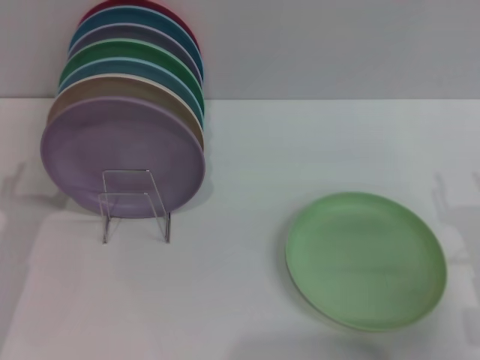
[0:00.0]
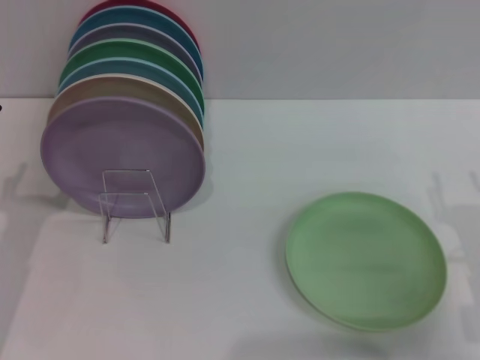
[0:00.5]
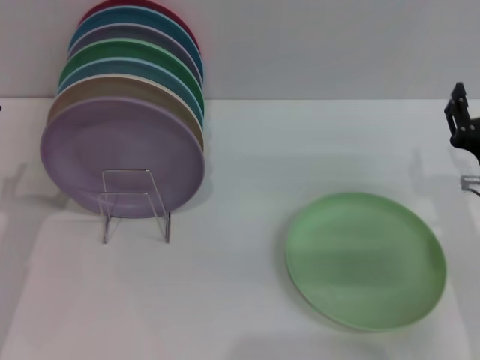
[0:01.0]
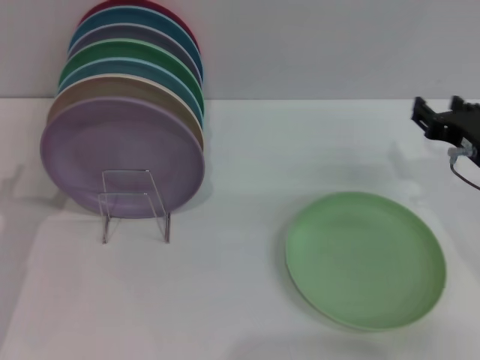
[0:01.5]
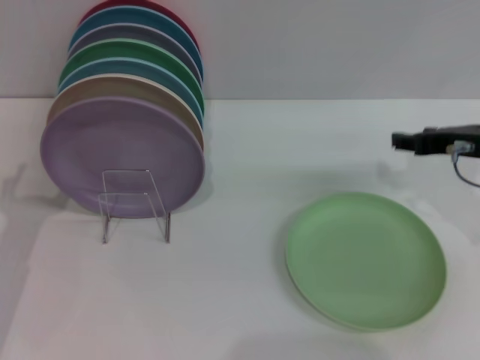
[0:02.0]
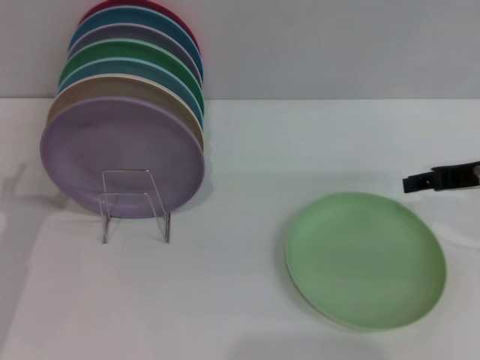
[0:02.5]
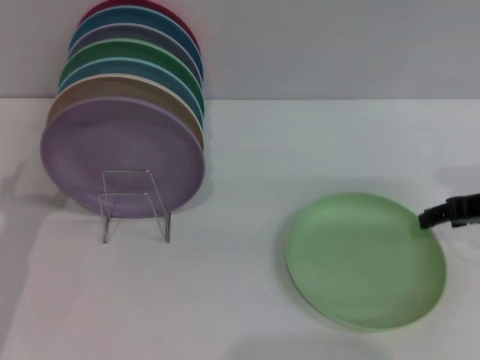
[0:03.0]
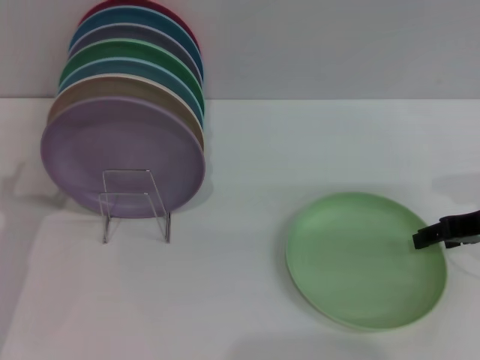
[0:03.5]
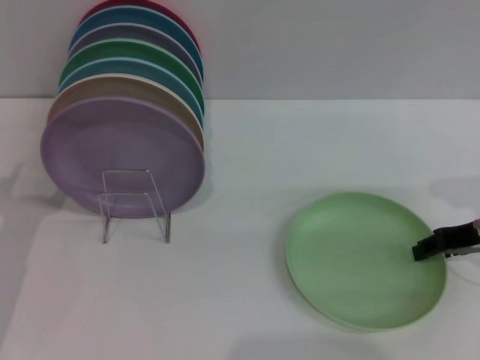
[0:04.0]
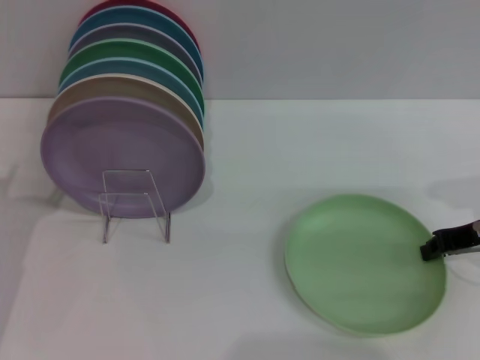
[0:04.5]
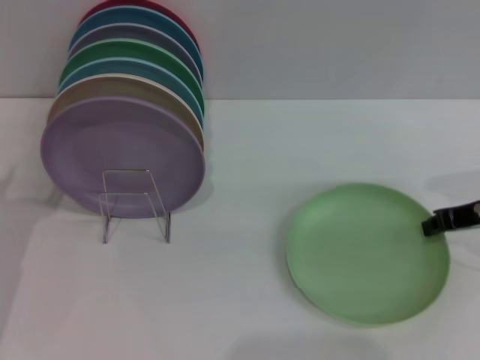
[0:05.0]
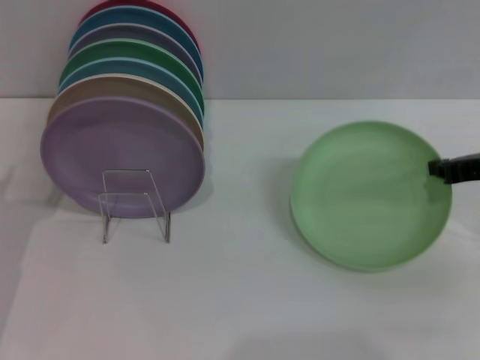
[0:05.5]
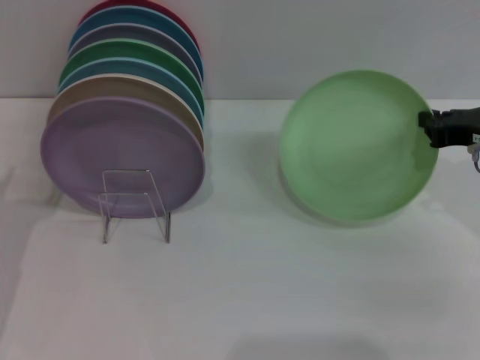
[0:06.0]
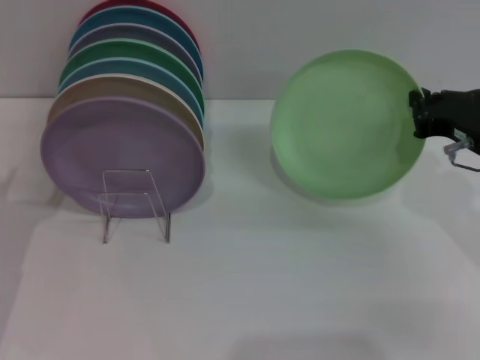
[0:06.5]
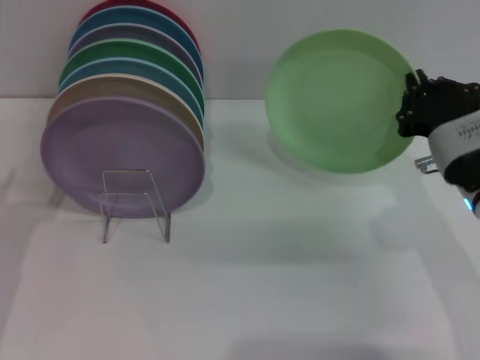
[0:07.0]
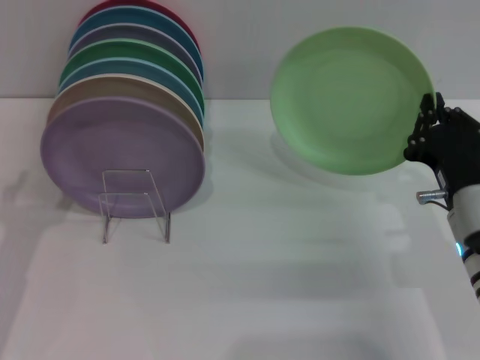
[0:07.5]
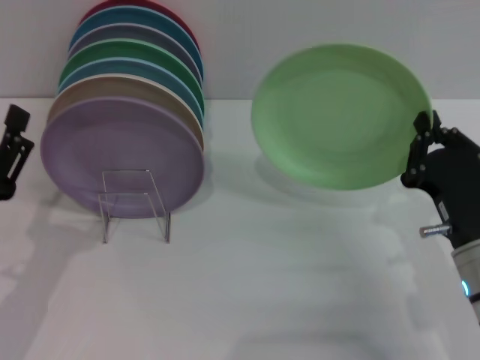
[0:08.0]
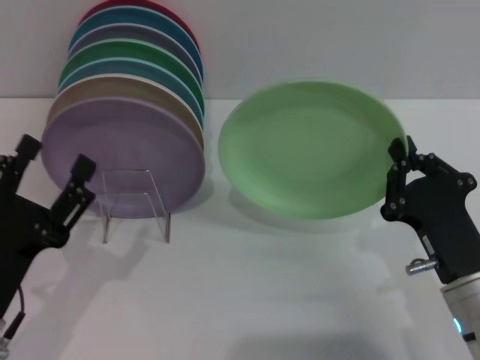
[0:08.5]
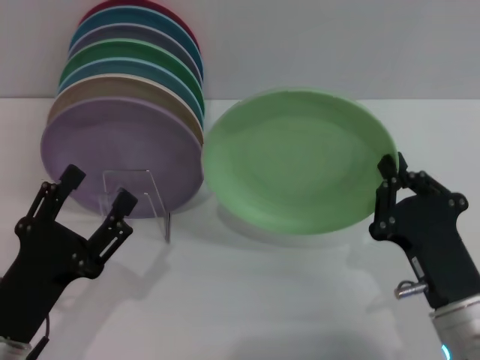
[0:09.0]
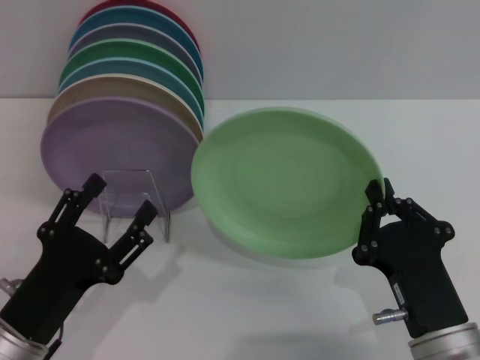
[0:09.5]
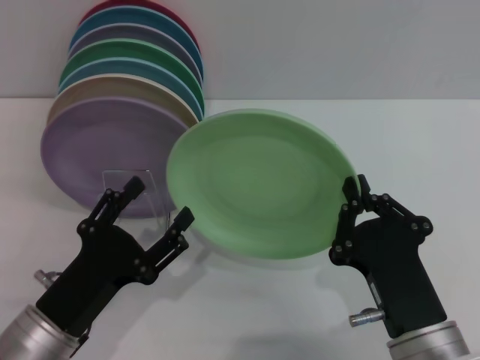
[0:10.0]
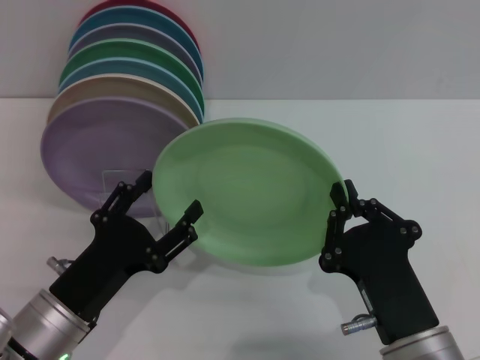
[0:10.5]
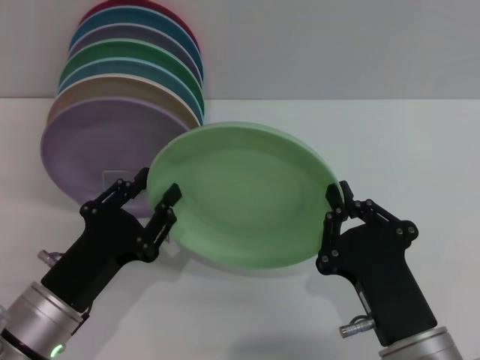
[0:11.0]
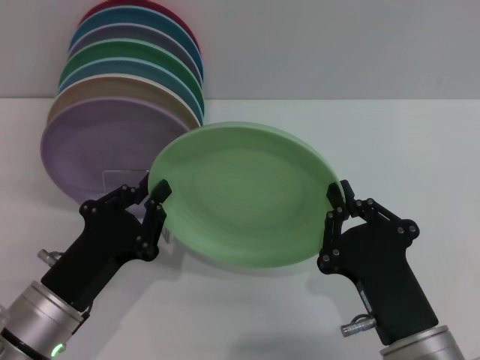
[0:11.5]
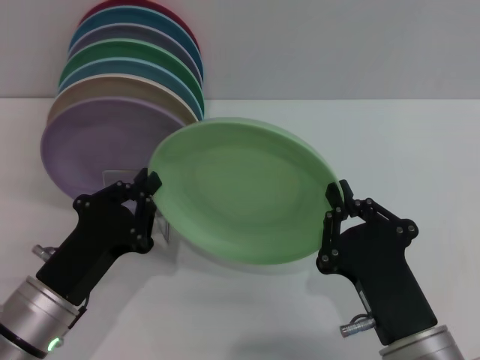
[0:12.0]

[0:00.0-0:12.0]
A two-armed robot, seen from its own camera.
Task of the whole recording: Grip the plate with one hand, pass it to the other, then set it on the shelf.
Step, 0:00.0 to 0:05.5: Pick up the plate with the right gripper.
0:00.0 to 0:02.0: The right gripper shifts approximately 15 cm forward and upward.
0:04.0 to 0:06.0: The right gripper closes.
0:06.0 to 0:08.0: The right gripper shifts about 15 cm downward, backward and to the left.
0:08.0 to 0:10.0: The right gripper shifts approximately 10 cm backward and to the left; the left gripper goes some 5 cm to the right.
0:10.0 to 0:12.0: The left gripper closes up.

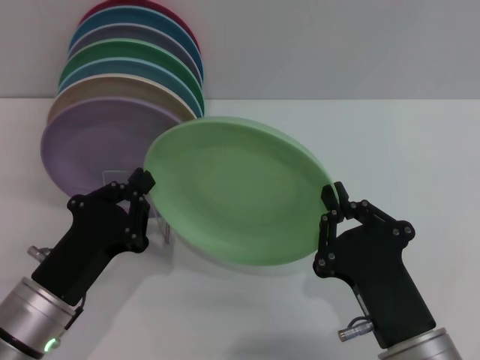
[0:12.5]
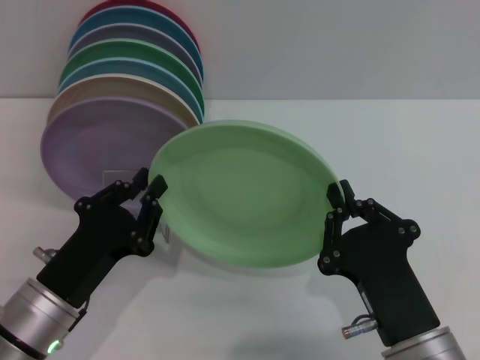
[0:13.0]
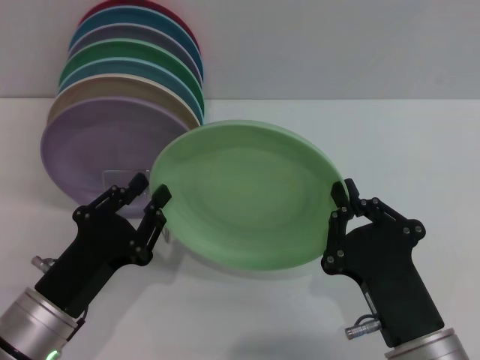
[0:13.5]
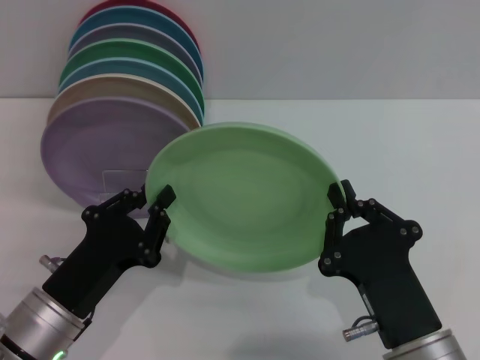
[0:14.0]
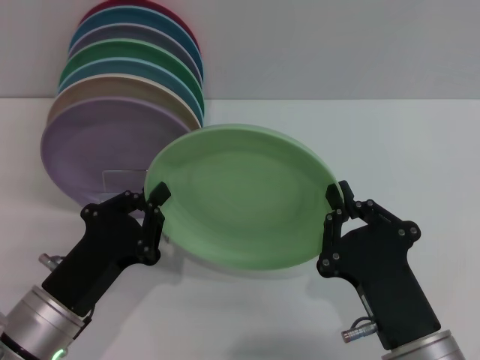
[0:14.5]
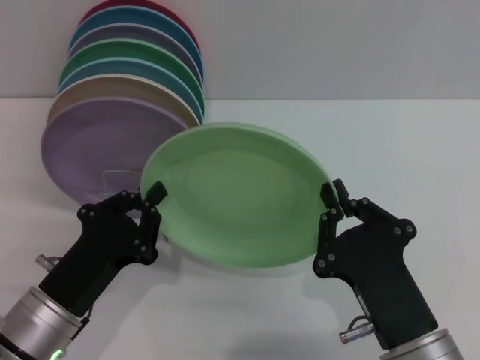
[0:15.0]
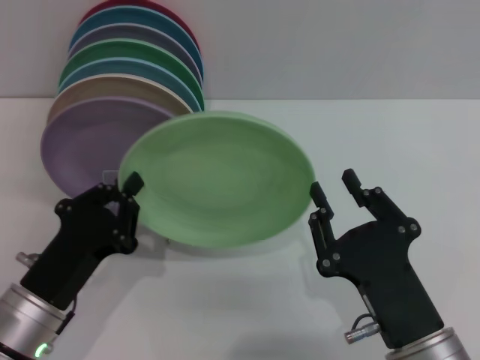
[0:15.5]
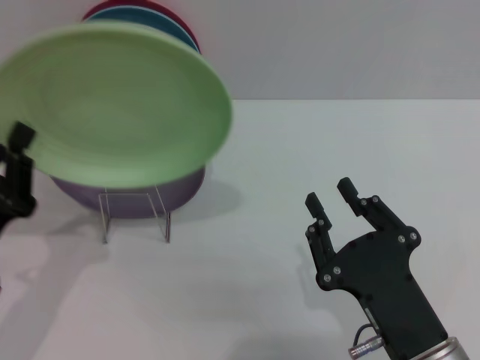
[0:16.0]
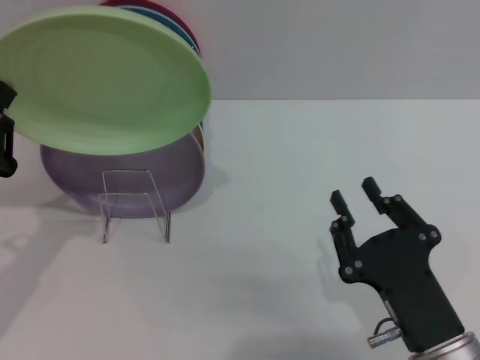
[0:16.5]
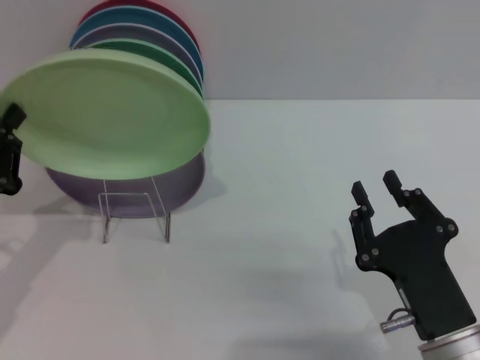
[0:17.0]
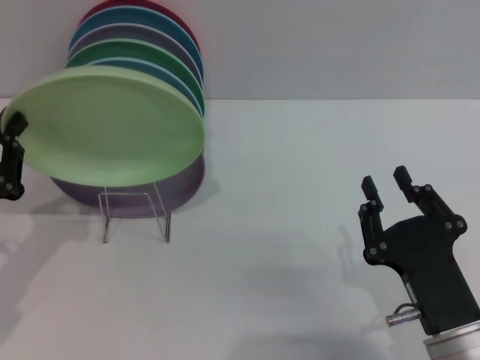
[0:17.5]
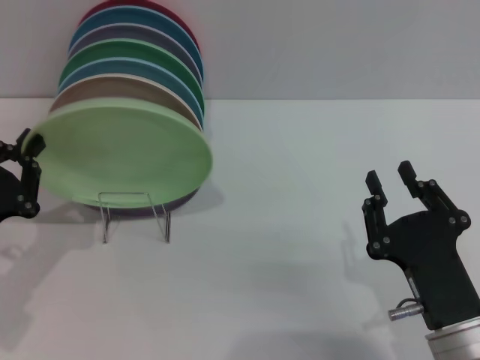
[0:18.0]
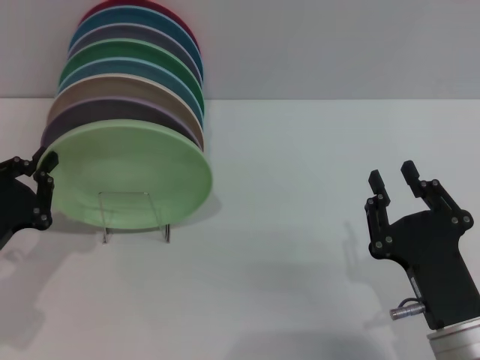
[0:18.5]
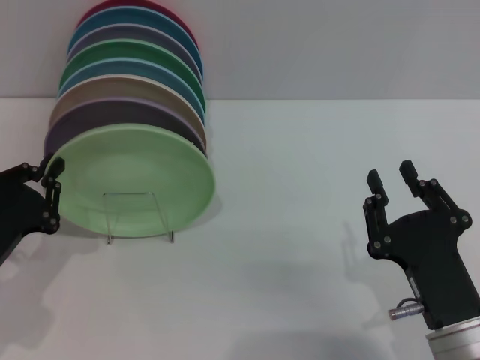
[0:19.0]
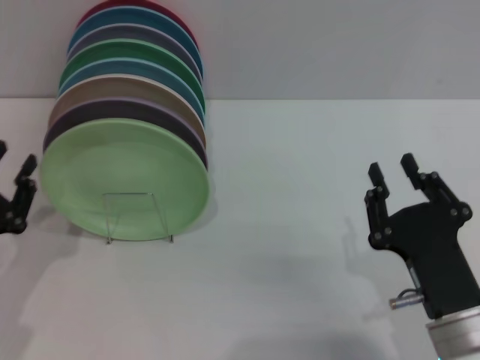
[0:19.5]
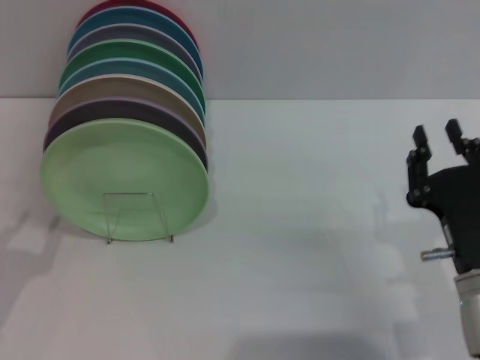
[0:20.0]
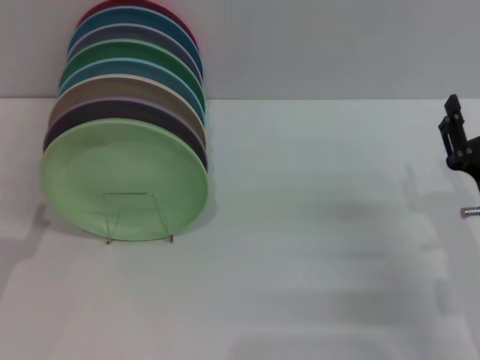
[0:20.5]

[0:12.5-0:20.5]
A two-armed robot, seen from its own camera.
Task of the whole recording: Grip the plate with one hand, pass it to the other, then set it on the shelf.
Step, 0:12.5 to 0:15.5: Pass the plate from the right gripper to the left gripper.
Step, 0:16.0 to 0:19.0: Place the plate on the shelf with the left gripper.
0:12.5 to 0:14.5: Both grippers stay about where they are.
0:14.5 to 0:16.5: The left gripper moves to the left and upward, roughly 10 cm. Meanwhile the right gripper opens.
0:18.5 to 0:20.5: The right gripper heads forward and to the right, covering roughly 10 cm; the left gripper opens.
